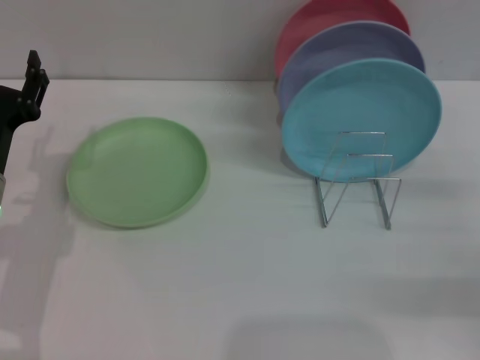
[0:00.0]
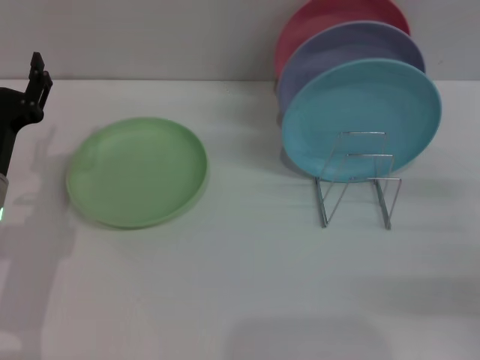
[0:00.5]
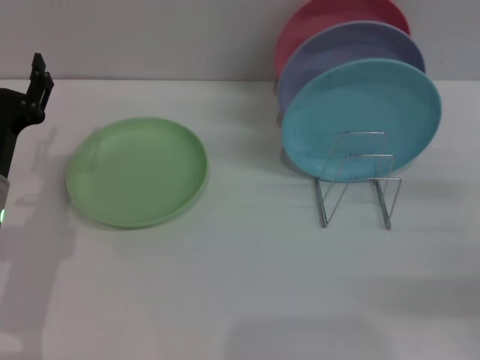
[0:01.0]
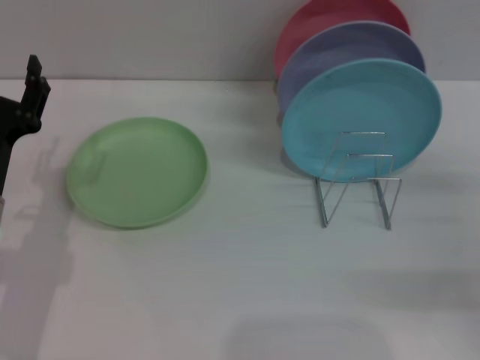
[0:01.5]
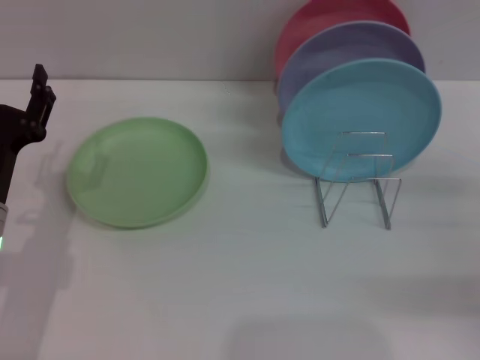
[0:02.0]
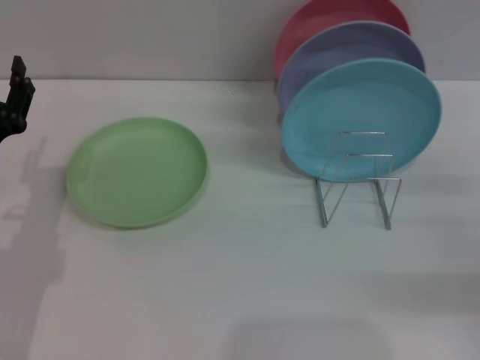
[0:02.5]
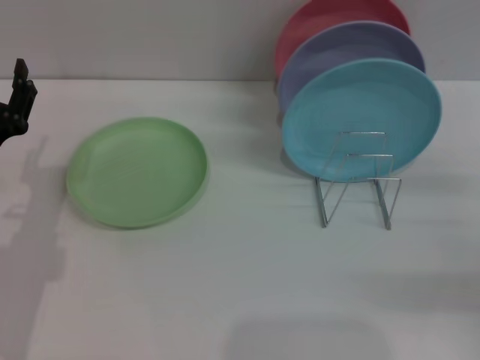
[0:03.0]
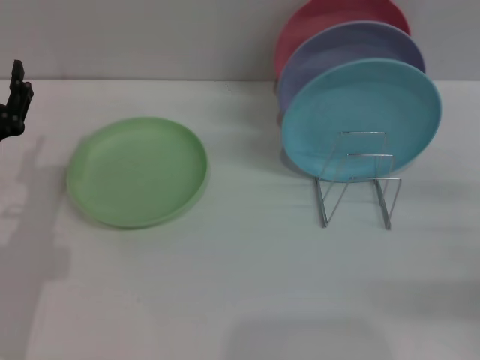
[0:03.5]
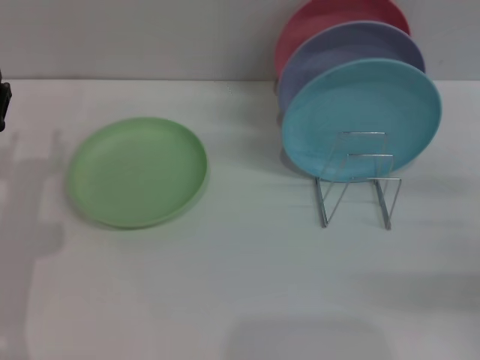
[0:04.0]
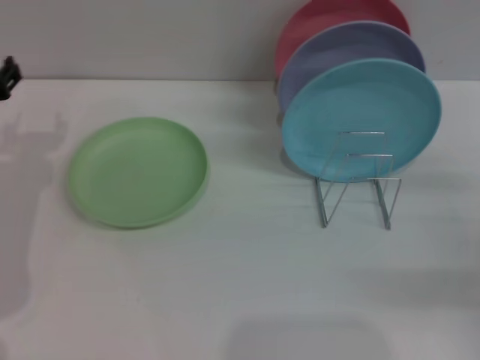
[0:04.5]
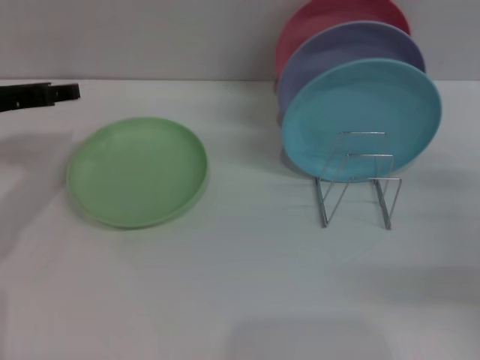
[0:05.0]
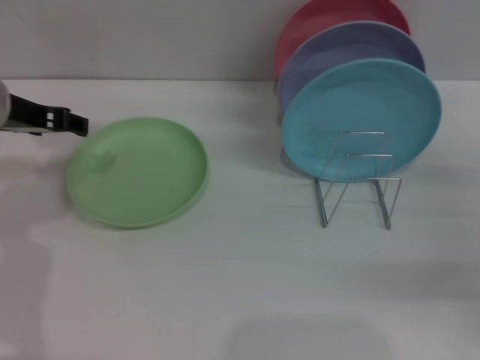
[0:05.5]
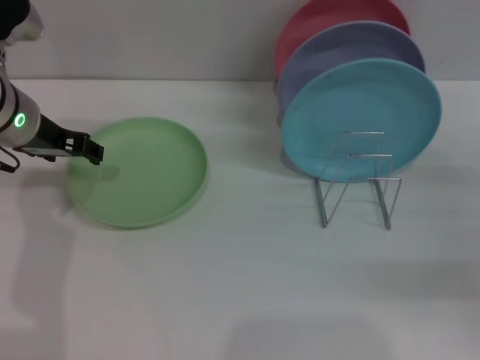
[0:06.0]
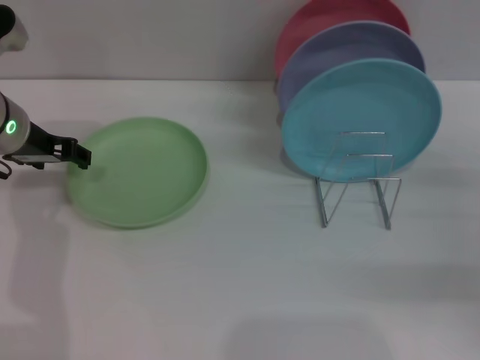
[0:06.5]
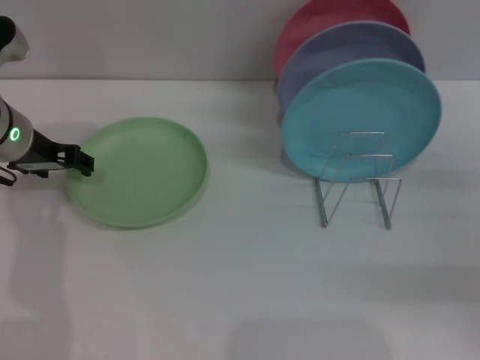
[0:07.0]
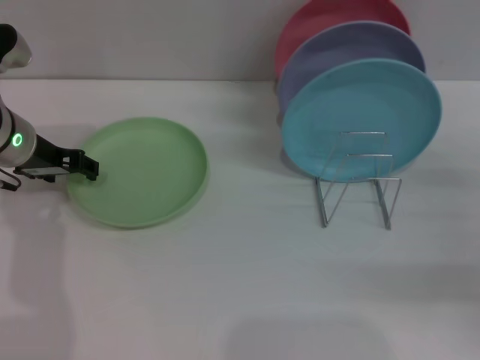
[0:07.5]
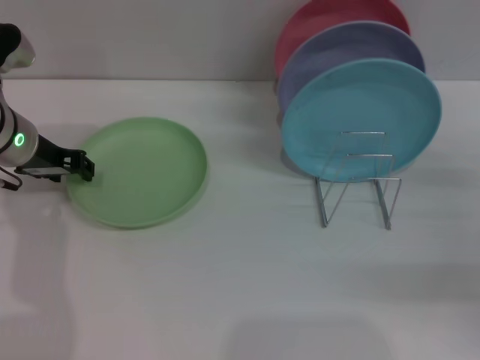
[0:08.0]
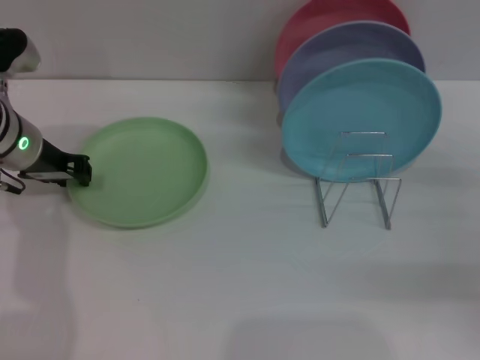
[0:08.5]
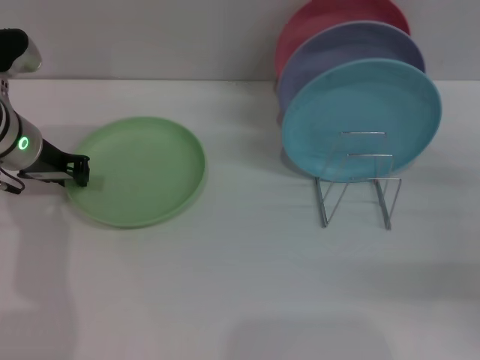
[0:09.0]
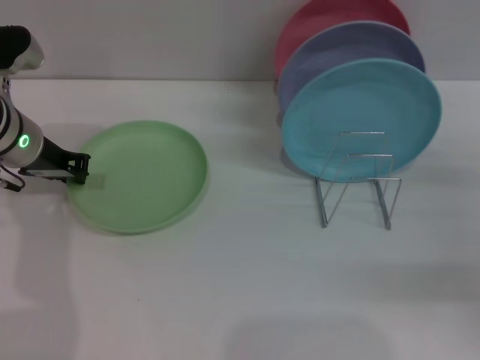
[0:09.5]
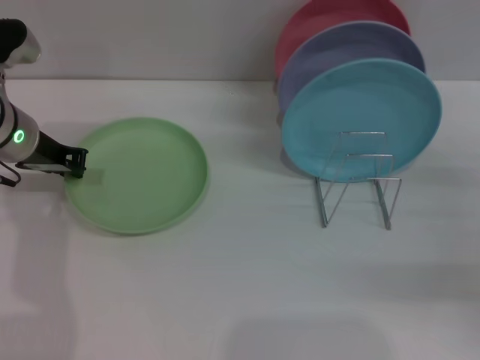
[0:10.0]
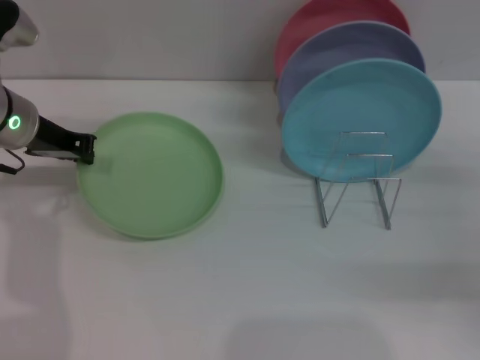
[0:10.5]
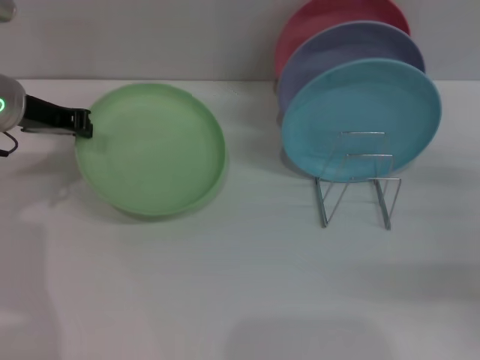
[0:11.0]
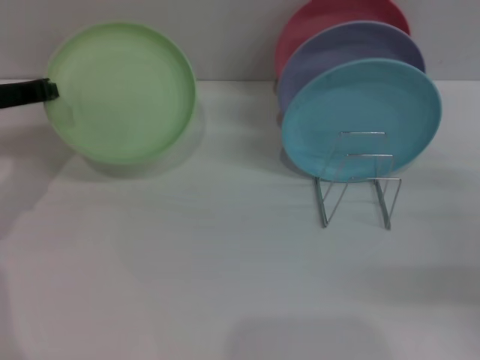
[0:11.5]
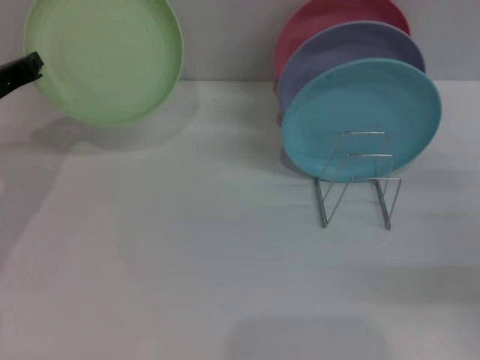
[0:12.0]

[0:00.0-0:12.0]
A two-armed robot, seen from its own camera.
Task of the whole recording: Grip the plate with one hand, pass it to the other, then set it on the shelf.
Step, 0:00.0 to 0:11.0: Pick up the plate with the left gripper.
0:00.0 to 0:04.0: The grippers move only a little.
0:04.0 to 0:06.0: The left gripper heads forward and upward, covering about 15 cm.
0:06.0 to 0:08.0: There are only small adjustments of the grippers.
0:08.0 to 0:10.0: The left gripper closes.
0:10.0 to 0:12.0: The left gripper changes place by about 5 cm.

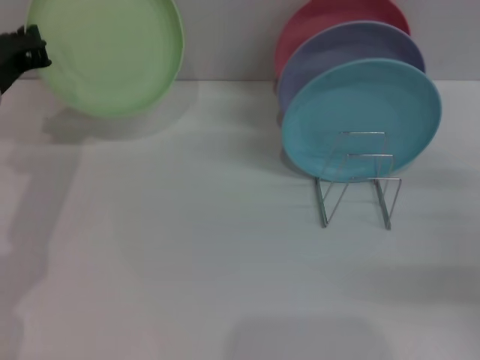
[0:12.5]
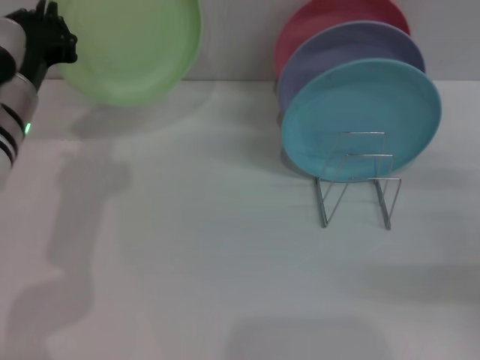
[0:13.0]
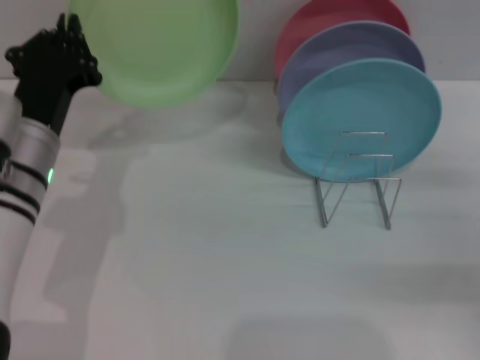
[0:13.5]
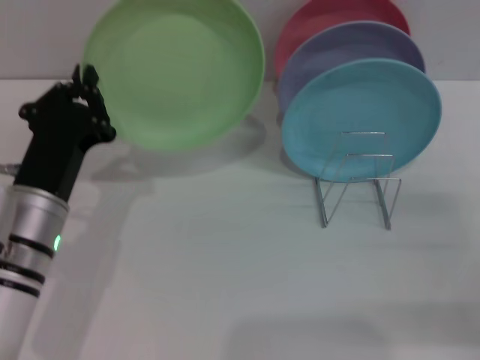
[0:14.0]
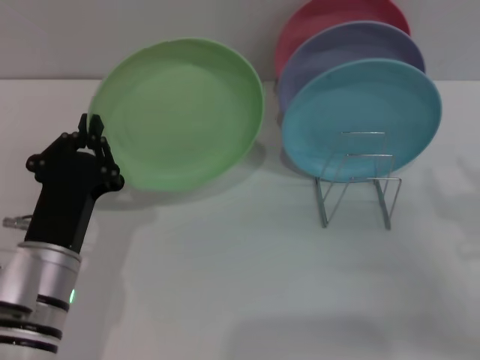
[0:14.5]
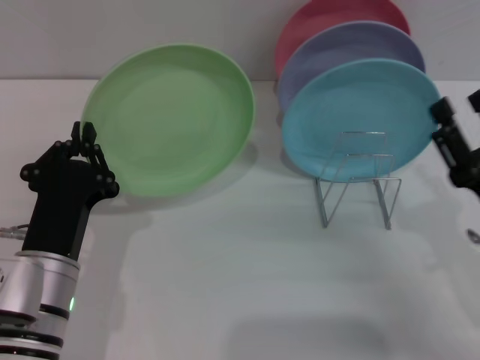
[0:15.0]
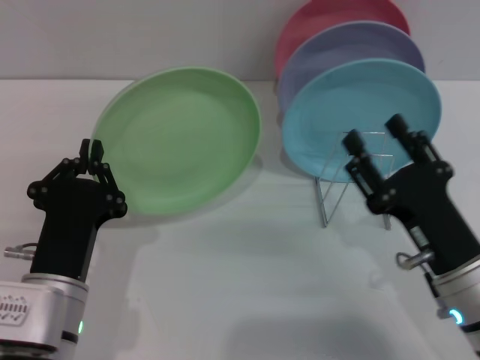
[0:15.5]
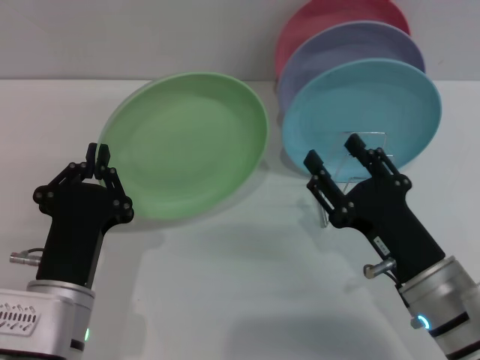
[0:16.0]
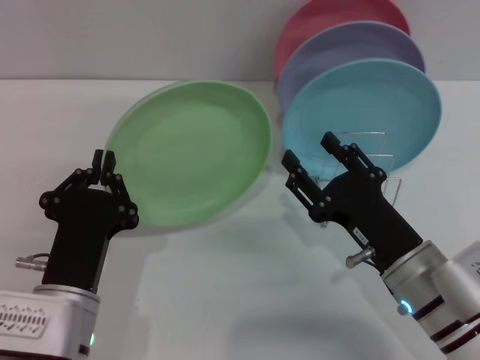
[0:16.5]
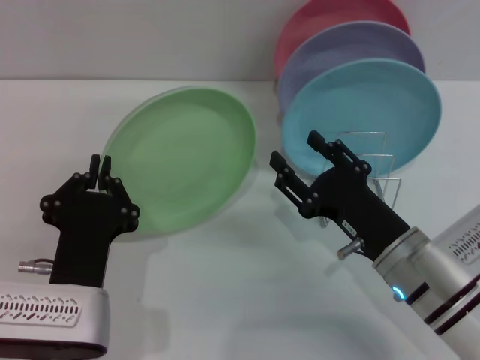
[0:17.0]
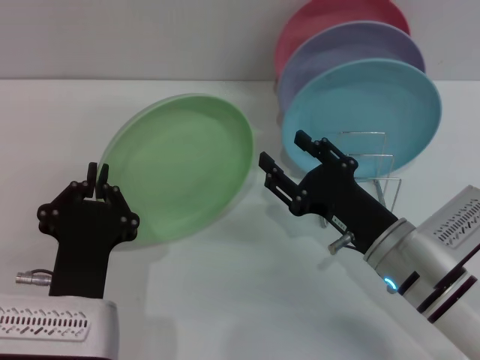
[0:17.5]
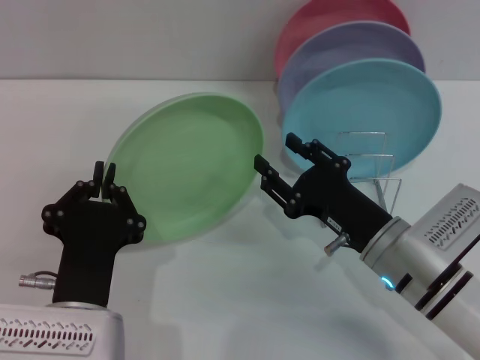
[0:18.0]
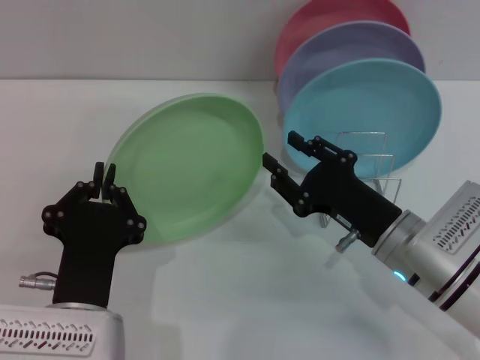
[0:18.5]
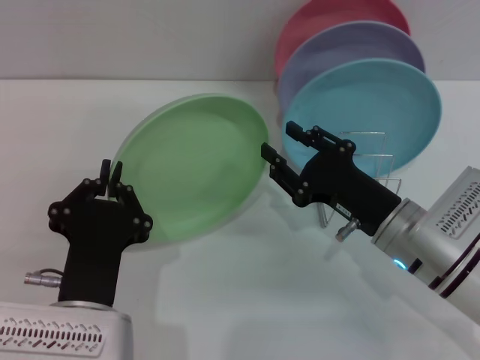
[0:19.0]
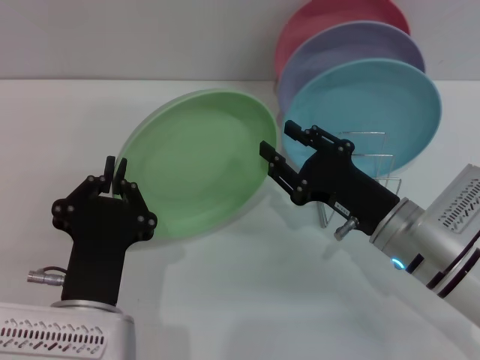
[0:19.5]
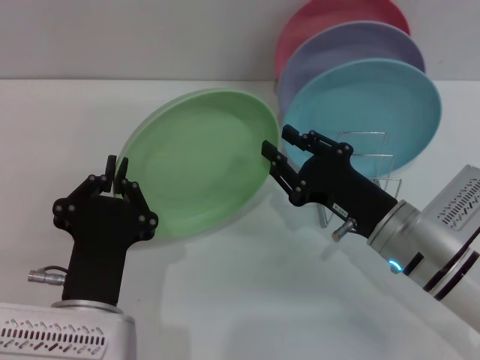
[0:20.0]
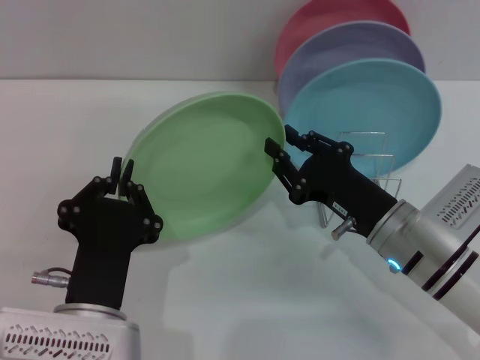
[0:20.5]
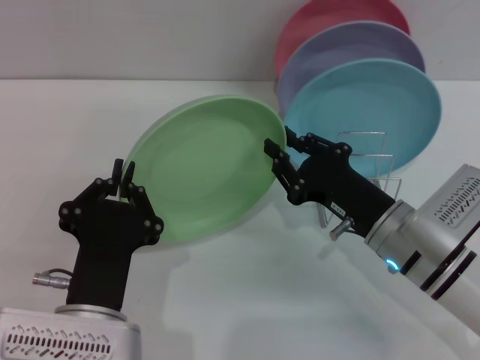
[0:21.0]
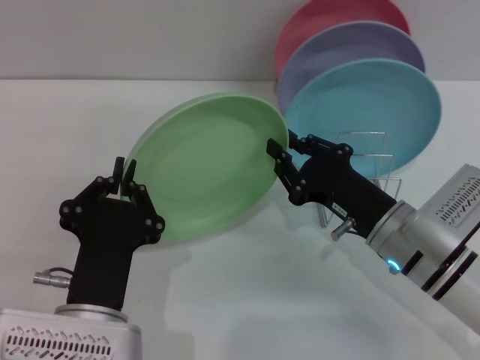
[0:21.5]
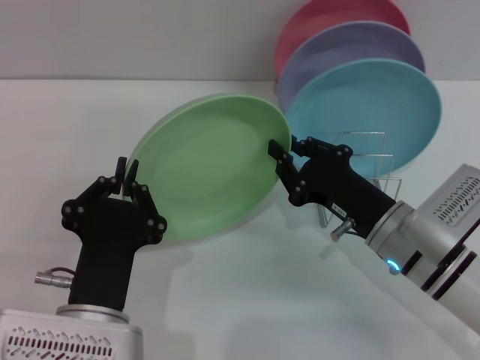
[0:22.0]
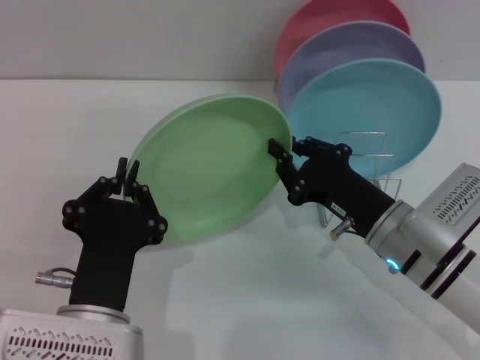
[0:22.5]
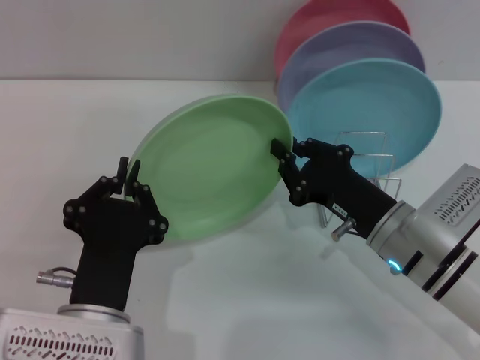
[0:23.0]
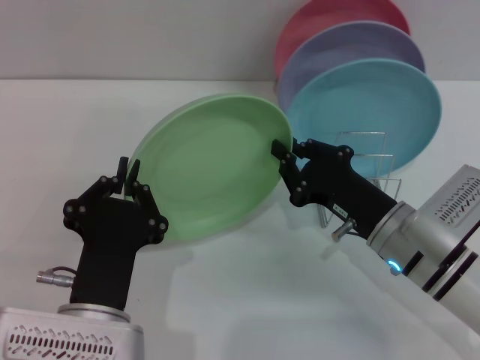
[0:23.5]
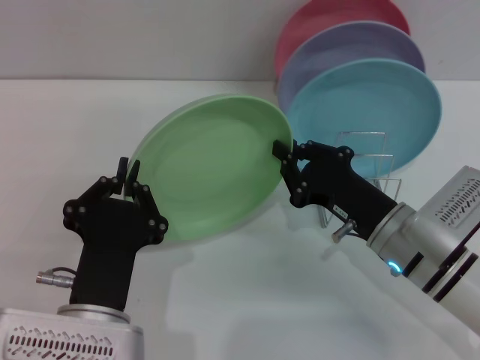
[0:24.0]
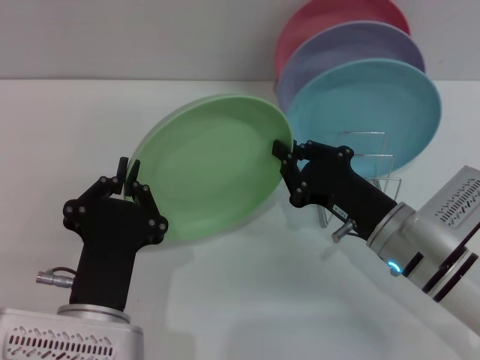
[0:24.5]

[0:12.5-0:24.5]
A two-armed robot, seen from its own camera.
Task of the whole recording: Grip the plate with one hand, pass it to the other, then set it on the shelf.
0:12.5 to 0:14.5: The left gripper is displaced backward, downward and to the right by some 20 cm. Meanwhile the right gripper moves to the left, about 5 cm.
0:14.5 to 0:16.5: The right gripper goes about 15 cm to the left.
0:16.5 to 0:20.5: The grippers make only small movements.
0:20.5 to 0:24.5: Neither gripper changes place.

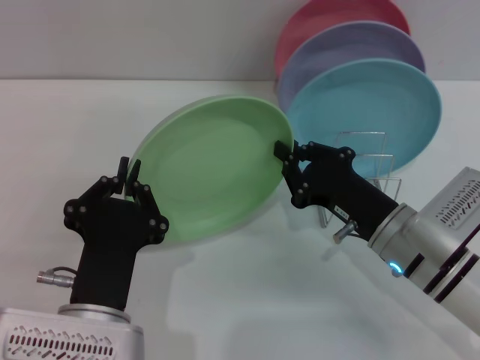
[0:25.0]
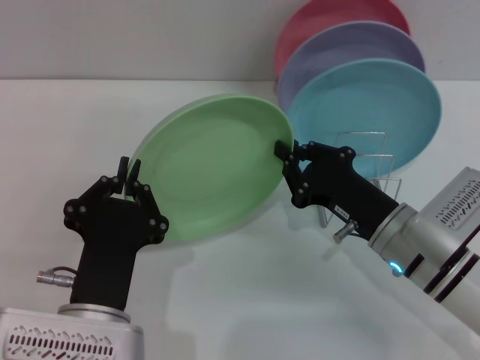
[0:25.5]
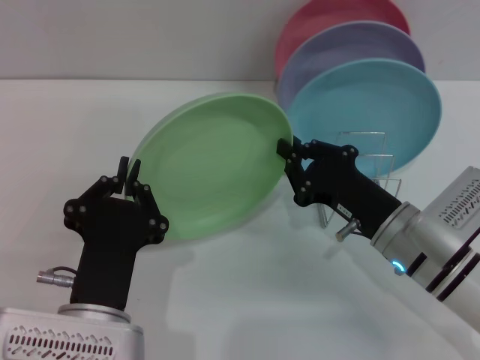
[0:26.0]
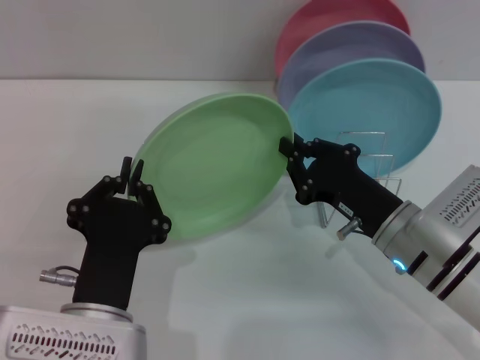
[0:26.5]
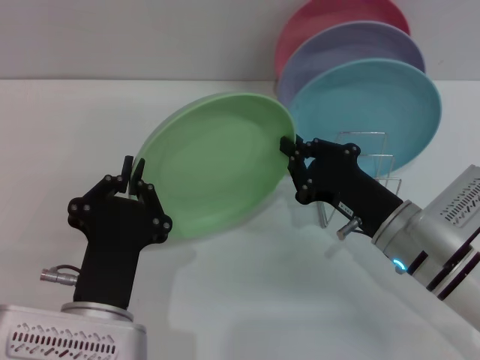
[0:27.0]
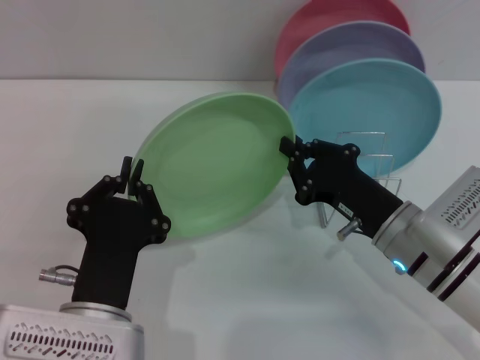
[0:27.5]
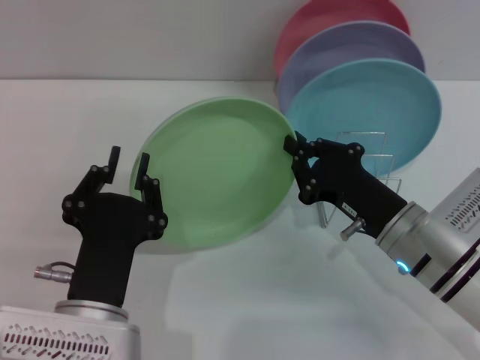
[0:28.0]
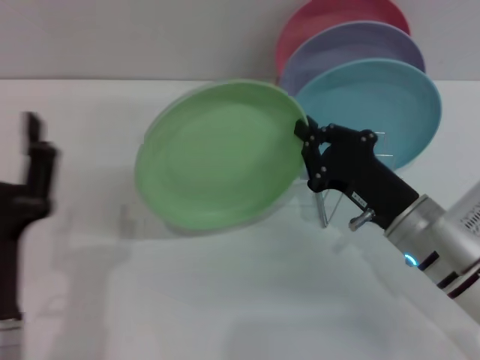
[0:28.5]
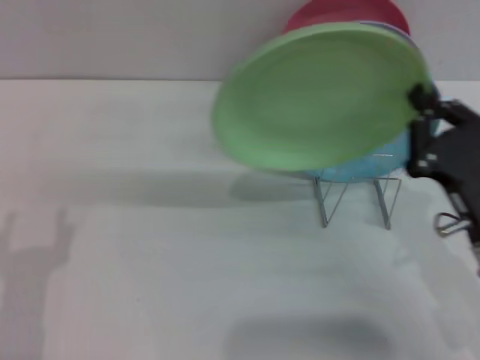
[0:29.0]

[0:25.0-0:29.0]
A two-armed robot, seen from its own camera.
Task of the whole recording: Grip the plate with one hand, pass it to the other, then set it on the shelf.
Step, 0:25.0 to 0:28.0: Pass the plate from the left gripper to the right gripper.
0:25.0 to 0:27.0: Neither gripper changes place.
0:27.0 to 0:29.0: The right gripper travels backward and to the right by roughly 10 cm, while the left gripper moves to the left, approximately 10 cm, and opens up.
